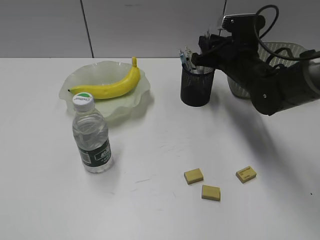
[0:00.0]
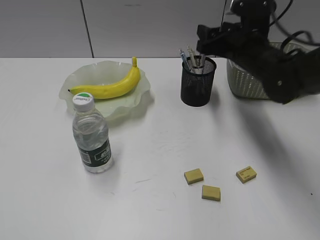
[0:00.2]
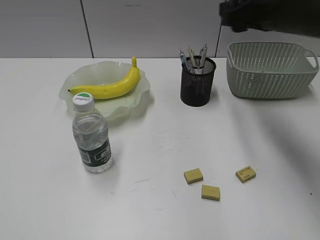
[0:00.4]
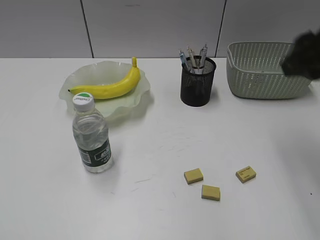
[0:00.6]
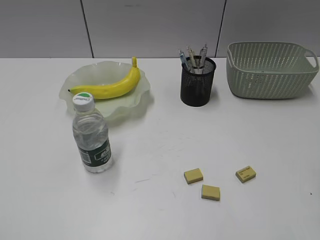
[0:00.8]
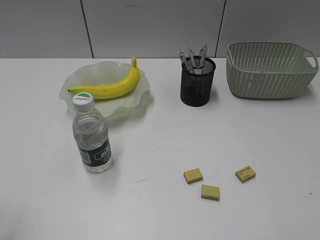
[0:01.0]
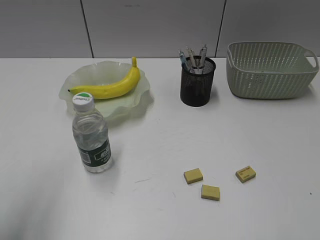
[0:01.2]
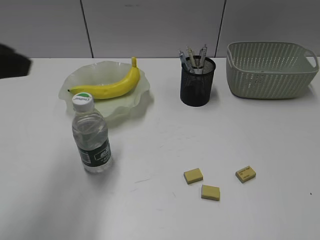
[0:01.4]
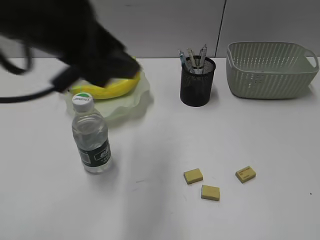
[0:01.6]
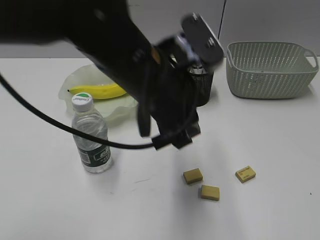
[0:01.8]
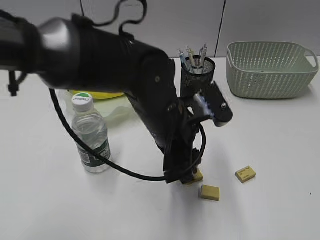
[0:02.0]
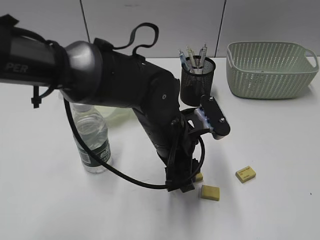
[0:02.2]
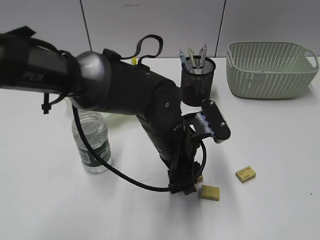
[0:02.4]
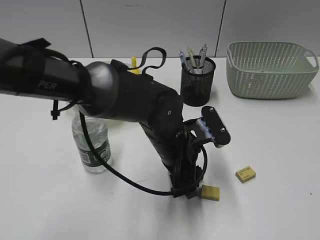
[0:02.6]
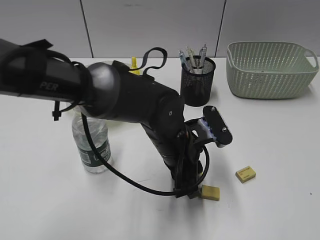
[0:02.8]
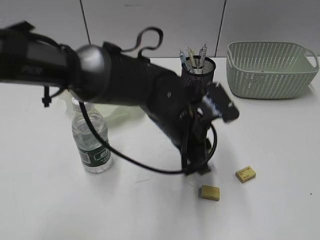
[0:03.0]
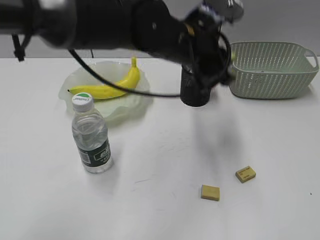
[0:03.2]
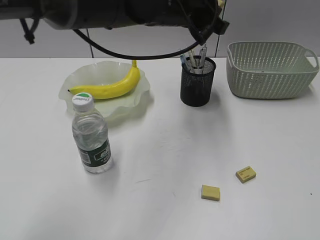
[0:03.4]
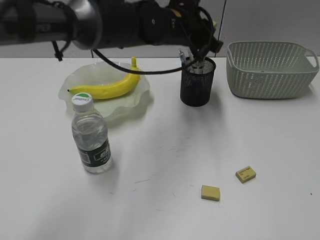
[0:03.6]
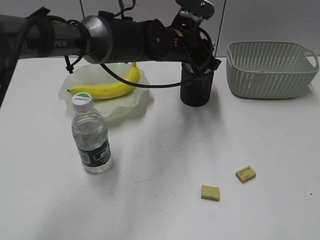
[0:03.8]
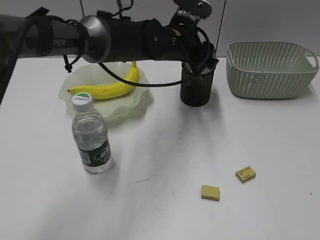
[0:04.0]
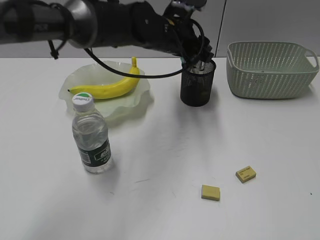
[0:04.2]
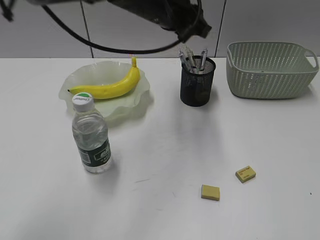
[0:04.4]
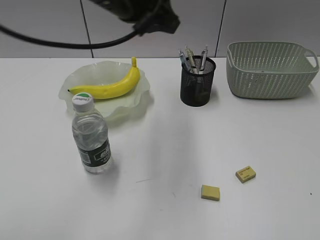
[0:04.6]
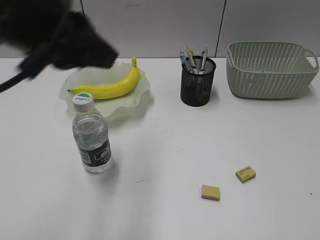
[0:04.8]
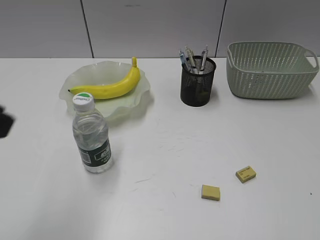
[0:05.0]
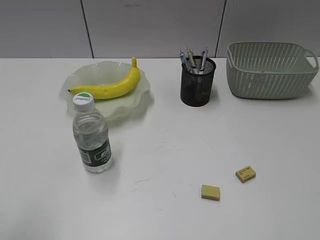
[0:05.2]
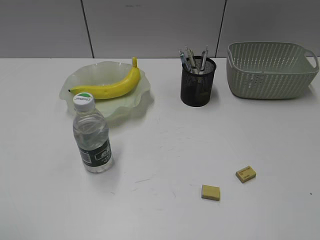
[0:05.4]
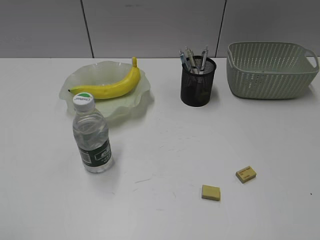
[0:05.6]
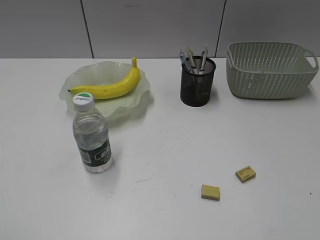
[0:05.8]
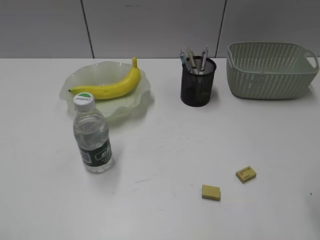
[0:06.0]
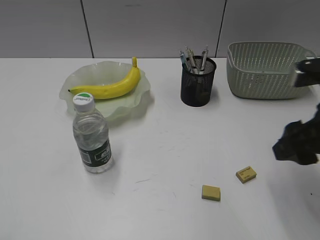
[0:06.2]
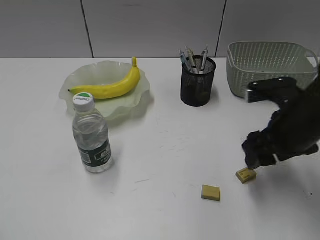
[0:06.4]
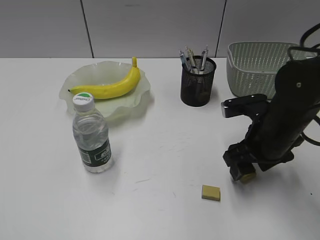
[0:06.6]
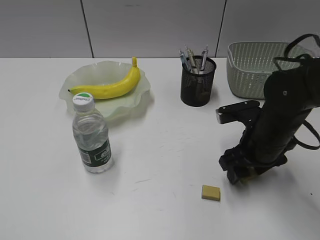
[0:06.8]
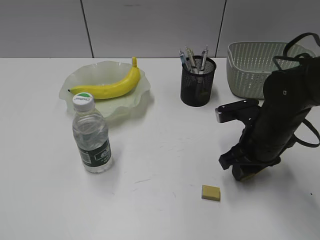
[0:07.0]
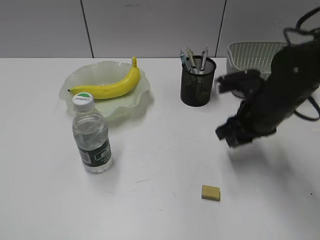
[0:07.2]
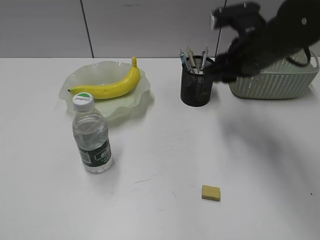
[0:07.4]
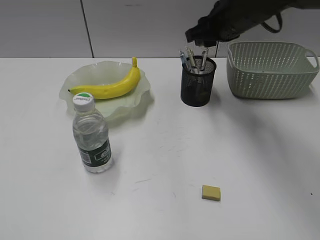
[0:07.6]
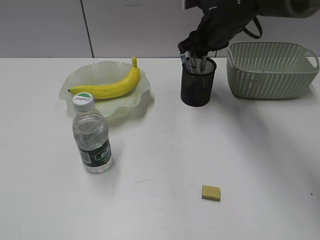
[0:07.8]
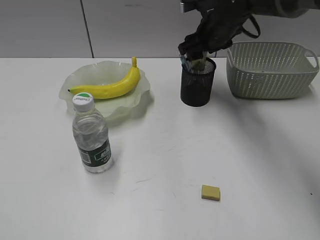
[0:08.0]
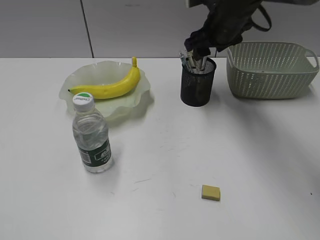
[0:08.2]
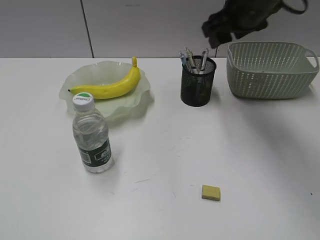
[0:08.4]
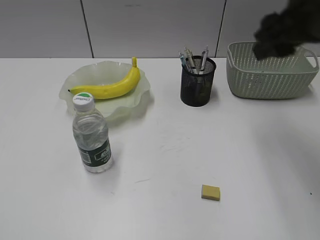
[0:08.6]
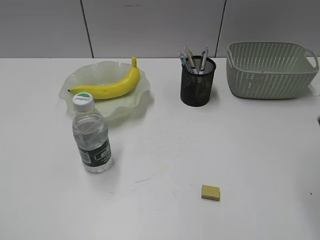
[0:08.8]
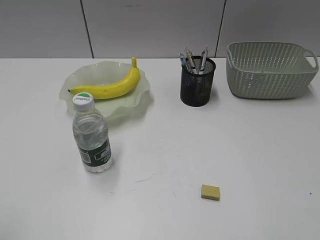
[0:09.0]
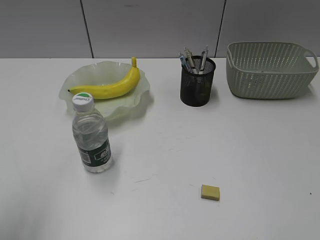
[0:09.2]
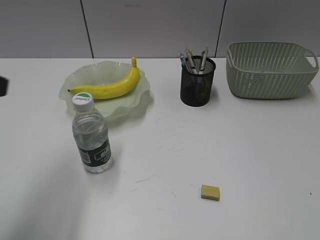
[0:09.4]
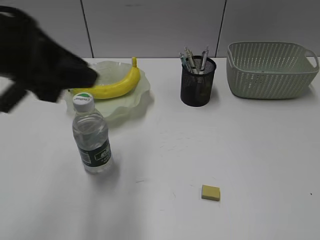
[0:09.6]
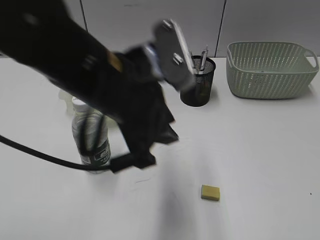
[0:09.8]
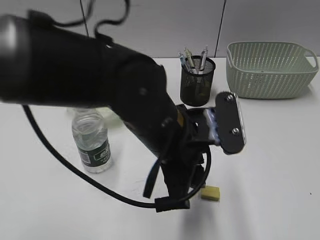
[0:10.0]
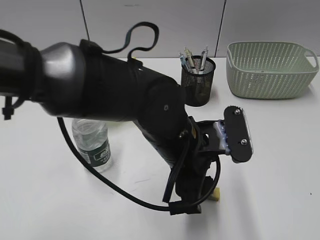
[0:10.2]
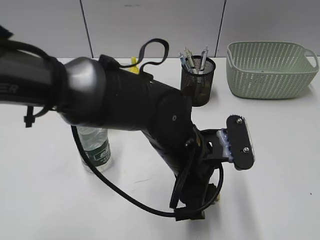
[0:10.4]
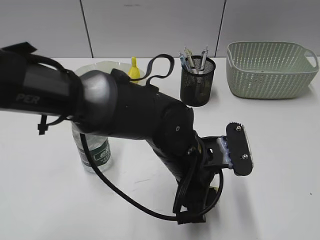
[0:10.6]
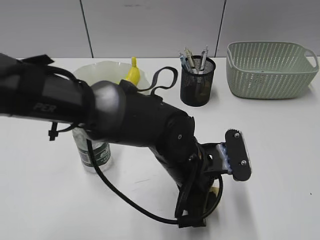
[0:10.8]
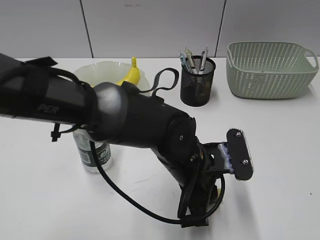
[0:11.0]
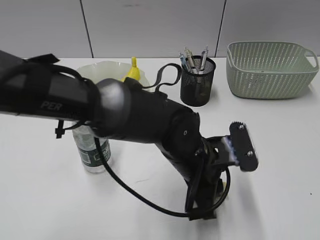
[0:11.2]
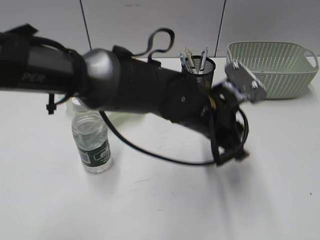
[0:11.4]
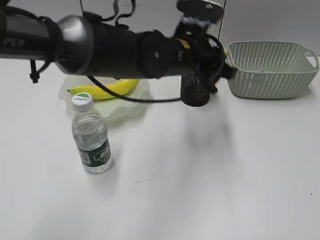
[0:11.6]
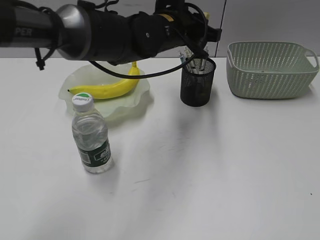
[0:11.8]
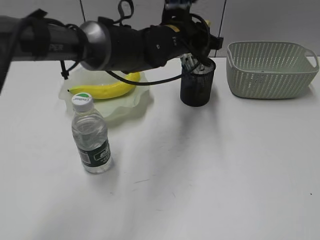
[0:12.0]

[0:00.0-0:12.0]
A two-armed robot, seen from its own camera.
Step, 0:00.4 to 0:02.8: Grasp the eraser with left gripper.
Step, 0:03.0 to 0:04.2: Place the eraser in pen holder with left gripper.
Step, 0:04.4 to 0:07.0: Grasp the eraser with right gripper.
Step, 0:07.2 to 0:08.2: Place the eraser in pen holder with right gripper.
Step, 0:08.4 to 0:11.0: Grasp the eraser with left gripper.
0:00.0 to 0:01.6: The left gripper heads forward and to the right, covering about 30 cm. Meanwhile the right gripper travels backward by about 40 cm.
0:01.6 to 0:03.0: The left gripper shifts roughly 25 cm downward and to the right, and closes up.
0:03.0 to 0:04.4: The left gripper shifts some 20 cm upward and forward, and opens and closes again.
0:04.4 to 0:06.0: The right gripper goes about 10 cm forward. The left gripper moves backward and to the left, roughly 50 cm.
0:06.0 to 0:07.6: The right gripper is displaced forward and to the left by some 35 cm, and opens and closes again.
0:07.6 to 0:09.0: The right gripper heads backward and to the right, covering approximately 35 cm, and opens its fingers.
0:09.0 to 0:10.4: The left gripper moves to the right, forward and downward, approximately 40 cm, and opens; the right gripper goes roughly 10 cm backward.
0:10.4 to 0:12.0: The left gripper moves forward, roughly 20 cm, and closes.

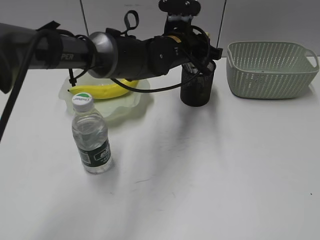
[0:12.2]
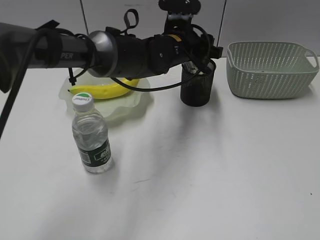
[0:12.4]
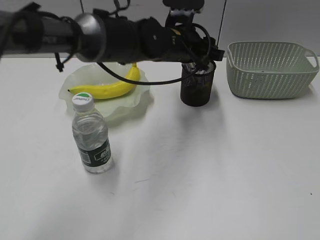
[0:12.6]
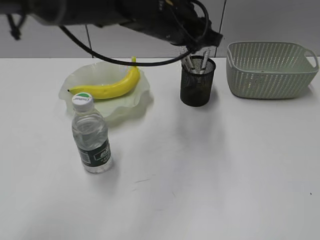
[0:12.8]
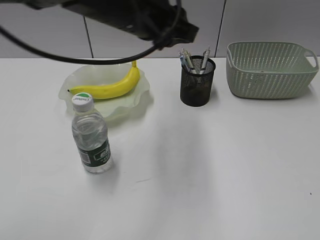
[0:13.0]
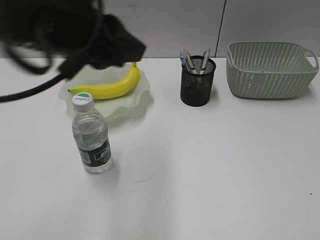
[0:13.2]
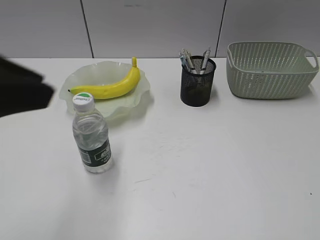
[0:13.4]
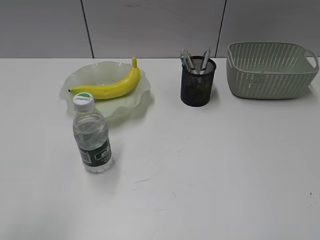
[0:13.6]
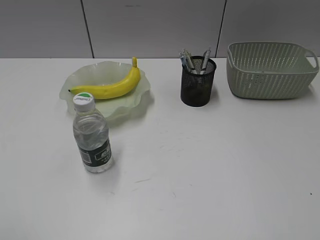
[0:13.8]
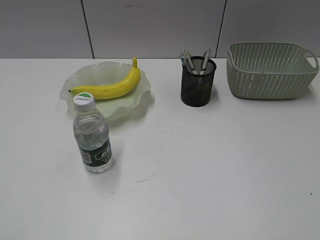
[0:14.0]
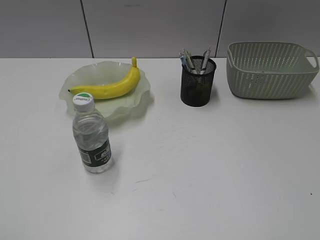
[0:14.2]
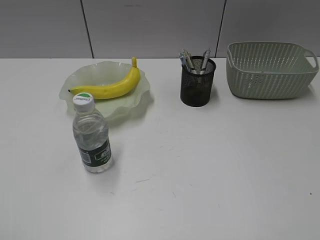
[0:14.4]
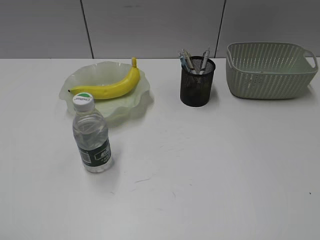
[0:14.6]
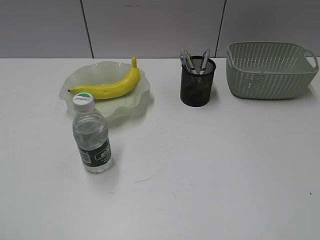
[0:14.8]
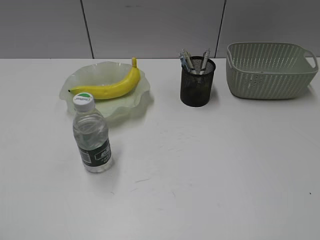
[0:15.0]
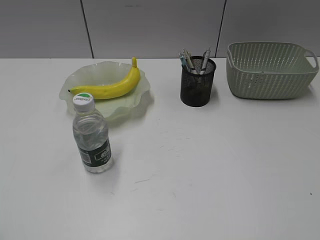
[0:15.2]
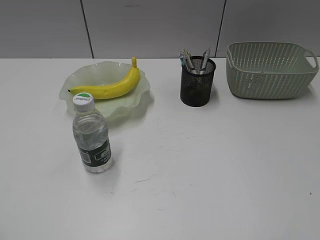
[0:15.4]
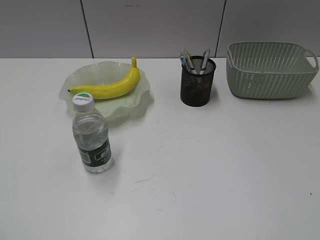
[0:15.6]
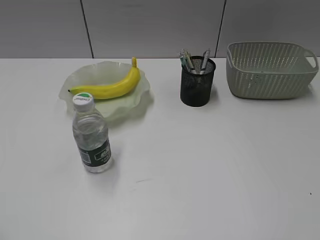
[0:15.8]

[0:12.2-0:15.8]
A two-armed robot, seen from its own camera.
0:12.2 to 0:14.0: The left gripper is displaced backward and to the left by approximately 60 cm, and opens and closes again.

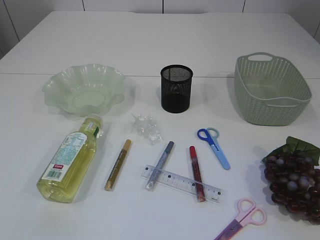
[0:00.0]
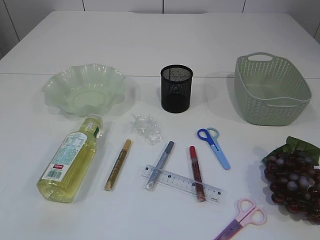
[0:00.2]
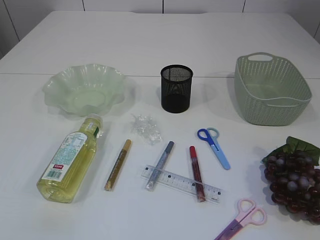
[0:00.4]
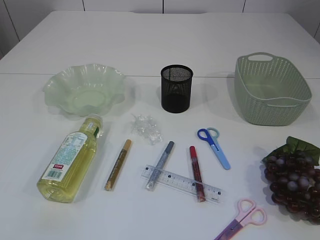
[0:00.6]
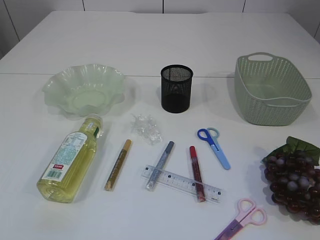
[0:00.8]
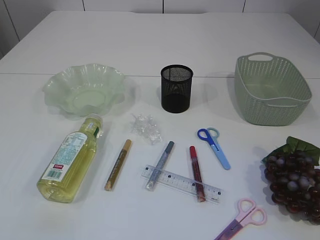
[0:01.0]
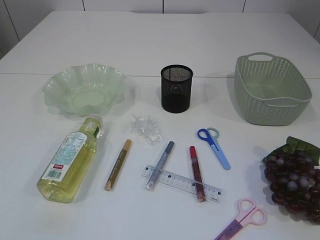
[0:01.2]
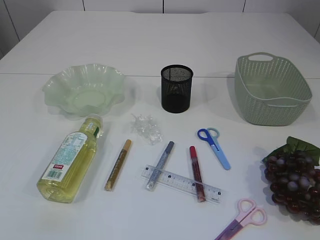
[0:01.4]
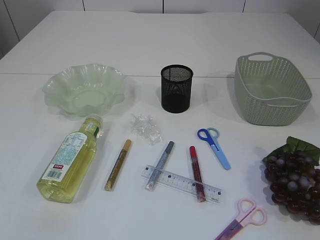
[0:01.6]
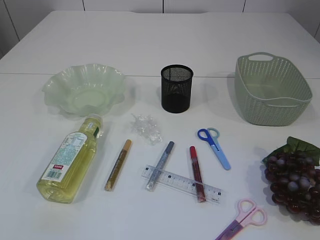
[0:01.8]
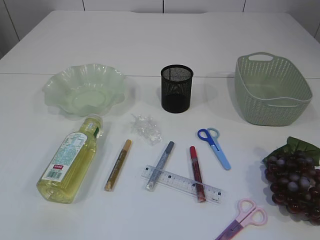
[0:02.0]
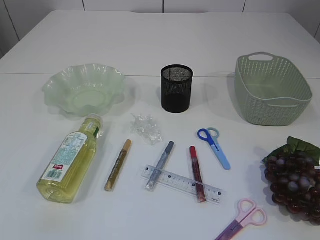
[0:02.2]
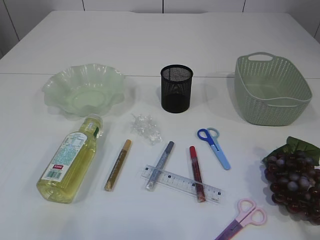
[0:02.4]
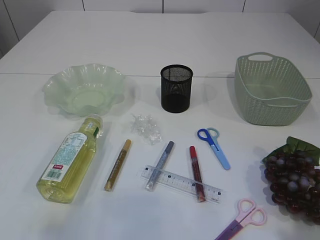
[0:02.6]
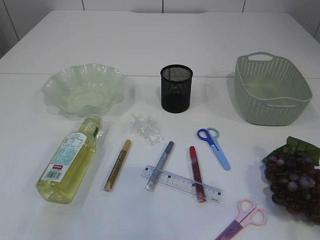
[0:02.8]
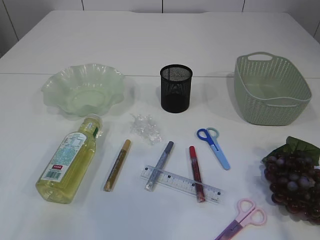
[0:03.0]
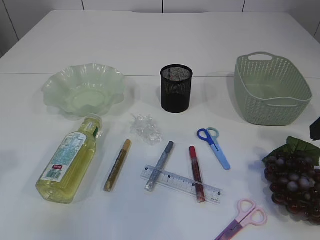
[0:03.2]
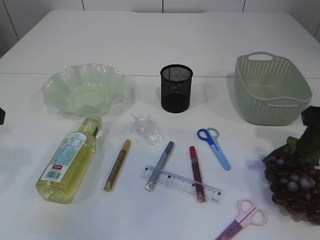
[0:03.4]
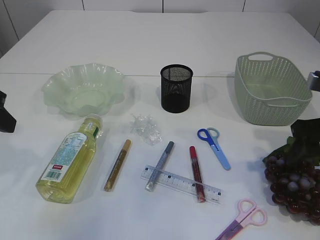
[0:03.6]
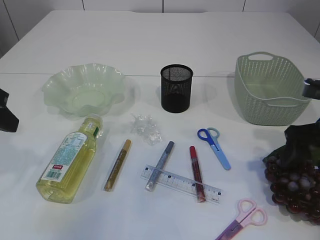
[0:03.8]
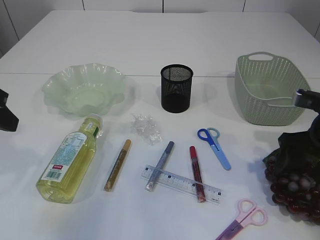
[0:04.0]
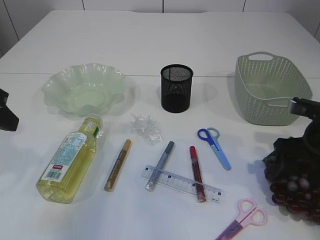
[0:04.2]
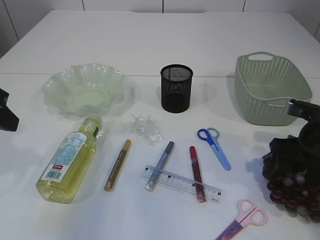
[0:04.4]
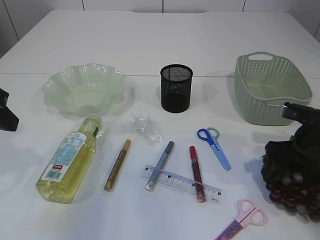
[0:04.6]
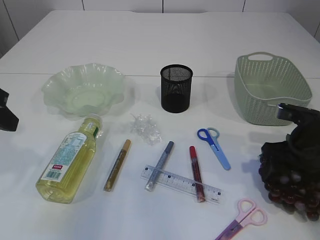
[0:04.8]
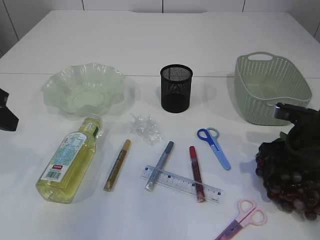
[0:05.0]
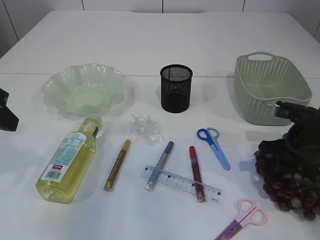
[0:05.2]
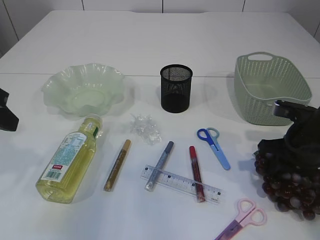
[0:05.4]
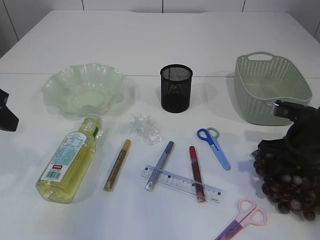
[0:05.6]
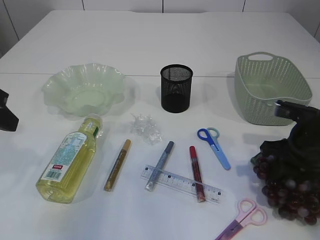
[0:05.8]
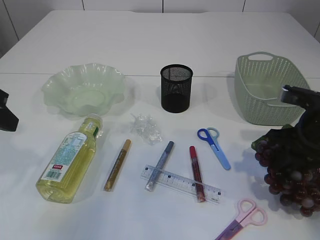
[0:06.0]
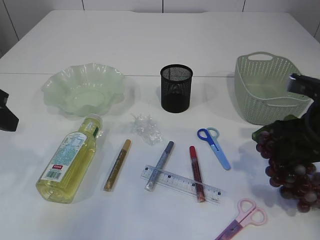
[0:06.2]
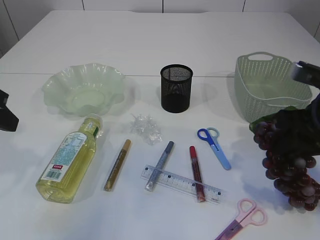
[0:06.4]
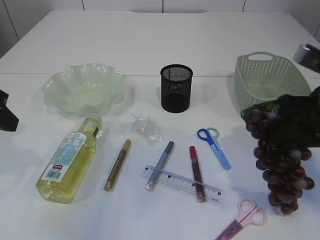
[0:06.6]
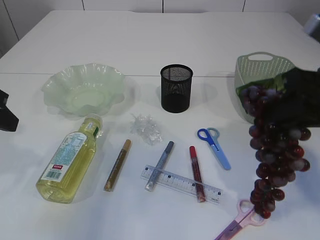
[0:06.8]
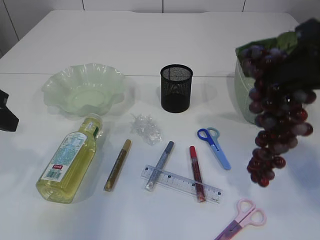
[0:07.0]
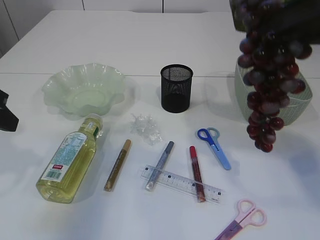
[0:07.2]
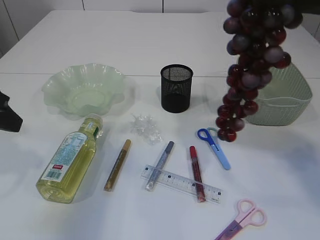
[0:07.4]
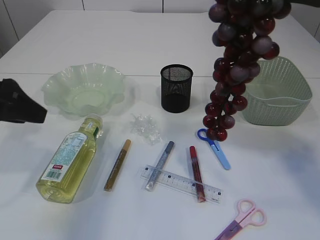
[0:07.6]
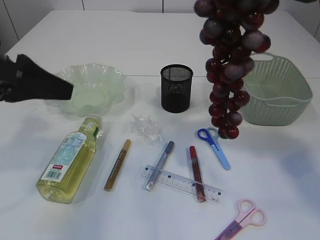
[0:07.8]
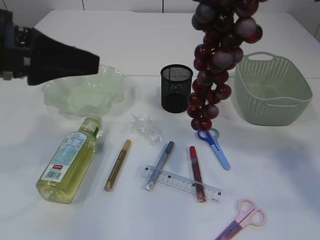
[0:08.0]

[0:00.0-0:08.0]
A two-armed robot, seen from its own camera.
Step, 0:00.0 to 0:06.2: Pick up the grapes.
0:01.6 to 0:03.2: Both grippers travel together forward, some 20 cm.
0:03.2 to 0:04.8: The right gripper shifts about 15 cm downward and forward, while the left gripper shifts by some 5 cm.
0:04.8 to 0:06.4: The right gripper heads upward, covering roughly 10 cm, and closes its fingers.
0:06.4 to 0:08.0: The left gripper moves to the right, some 5 cm, while the right gripper travels upward by roughly 20 cm.
